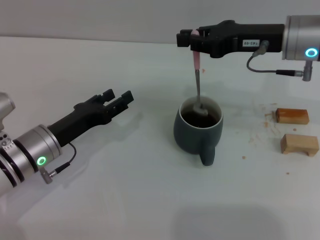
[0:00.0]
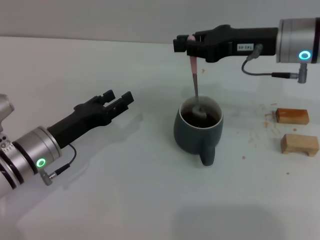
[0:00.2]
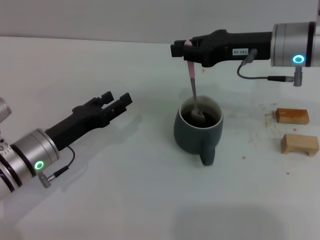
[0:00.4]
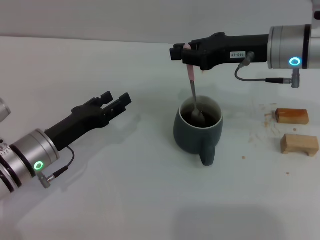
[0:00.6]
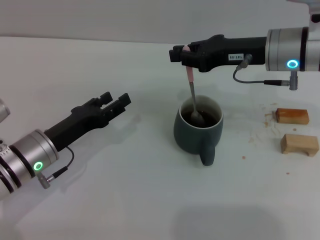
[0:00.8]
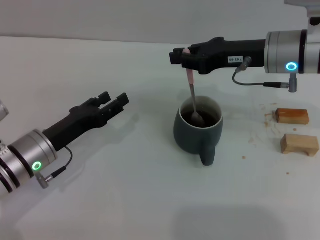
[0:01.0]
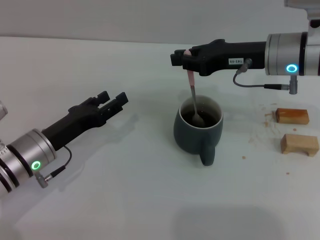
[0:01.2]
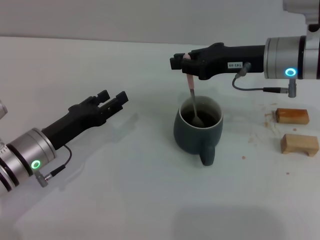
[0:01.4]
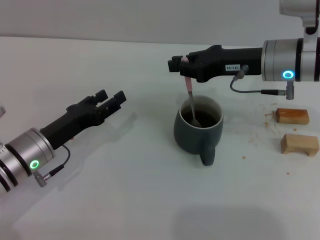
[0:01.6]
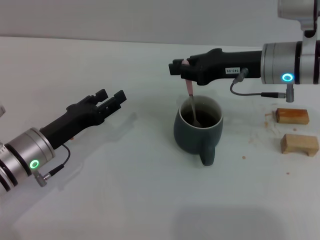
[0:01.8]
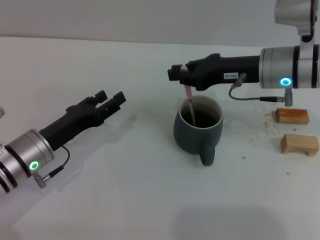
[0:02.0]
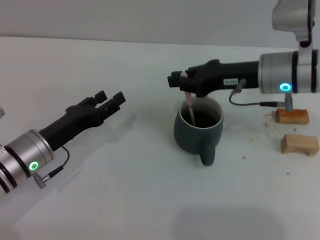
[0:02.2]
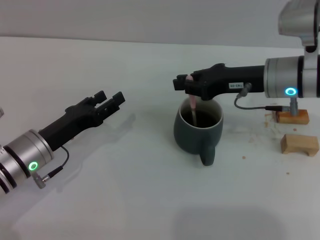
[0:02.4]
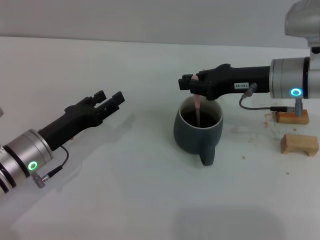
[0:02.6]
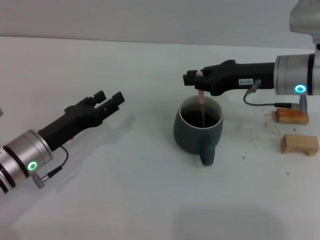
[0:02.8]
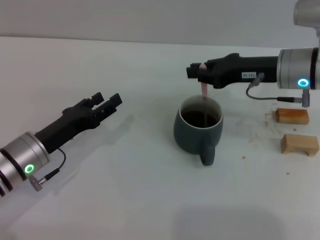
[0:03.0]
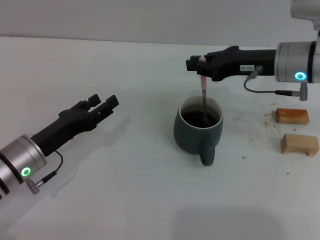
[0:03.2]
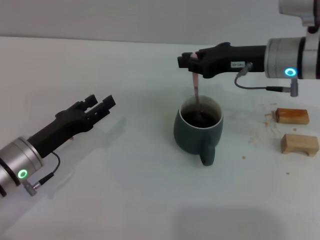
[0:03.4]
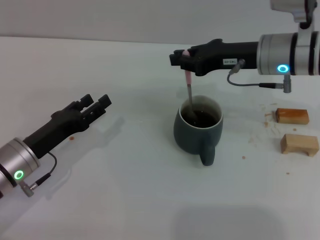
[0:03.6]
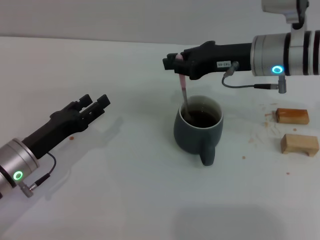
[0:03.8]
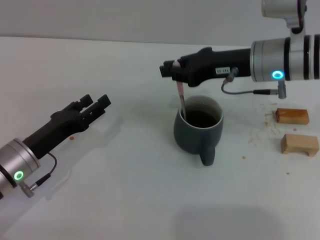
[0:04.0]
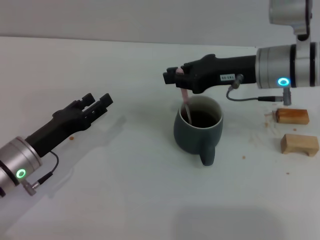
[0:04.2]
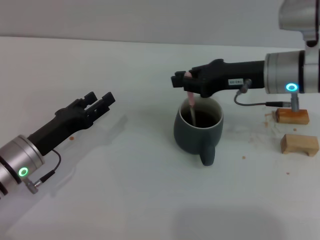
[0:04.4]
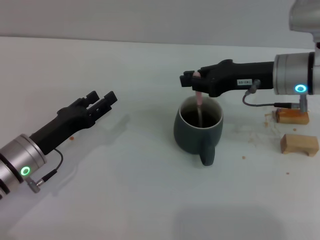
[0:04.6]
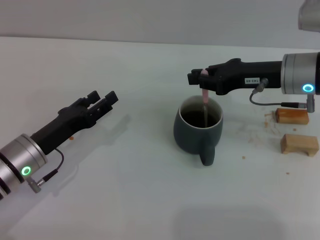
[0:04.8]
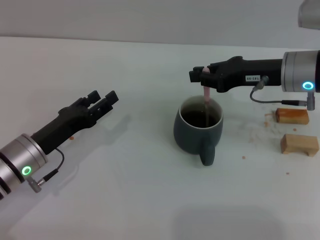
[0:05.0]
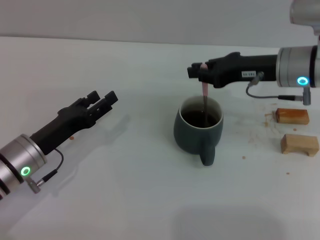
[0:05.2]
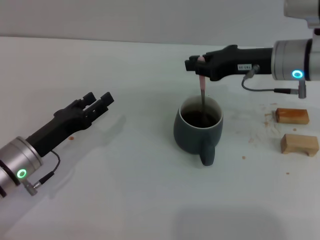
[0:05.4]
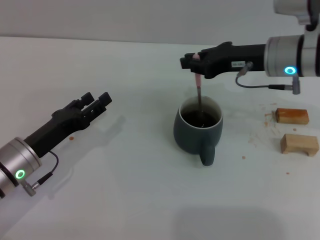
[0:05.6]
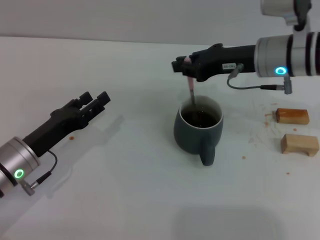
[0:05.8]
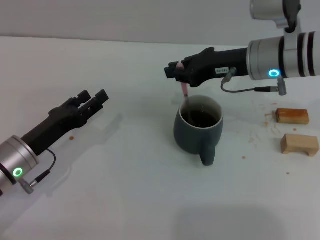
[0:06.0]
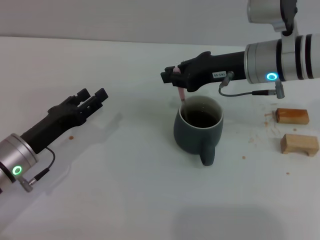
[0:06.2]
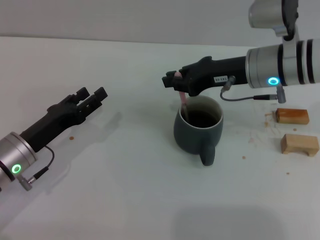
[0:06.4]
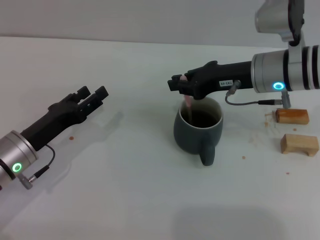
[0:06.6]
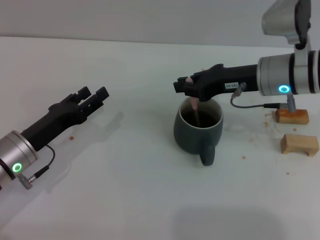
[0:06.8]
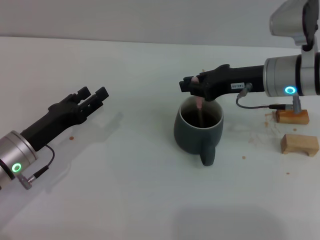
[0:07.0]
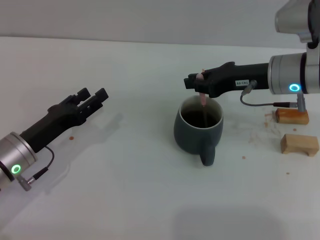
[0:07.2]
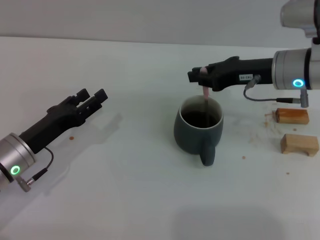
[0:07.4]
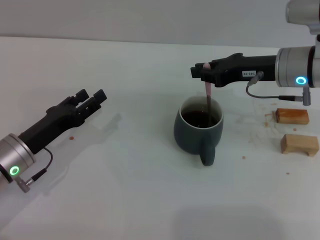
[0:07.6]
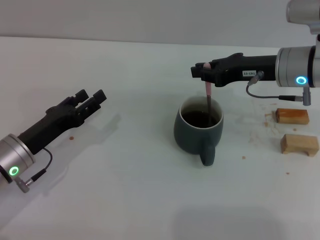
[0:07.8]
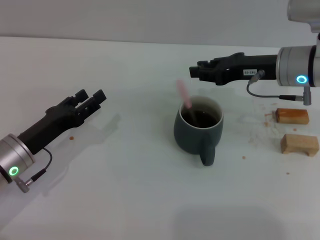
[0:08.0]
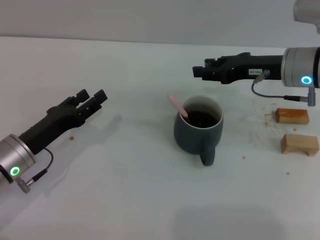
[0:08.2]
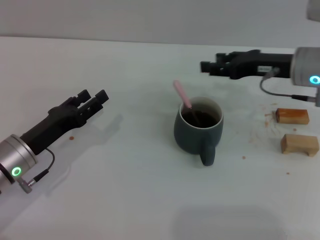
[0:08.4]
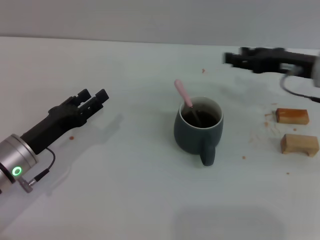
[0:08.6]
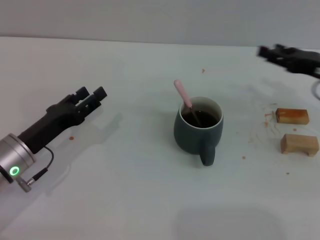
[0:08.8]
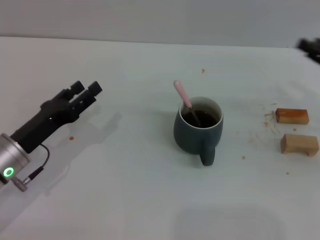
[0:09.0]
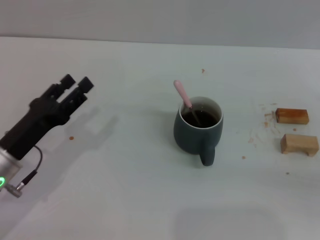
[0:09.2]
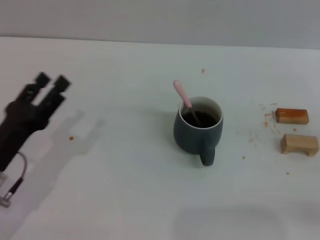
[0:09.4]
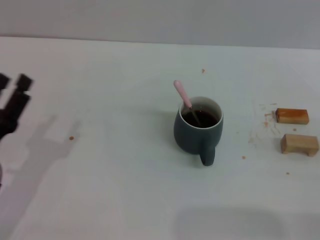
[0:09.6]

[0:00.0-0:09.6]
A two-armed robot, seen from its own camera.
Task of the whole recording: Move the grey cup to the center, lift the pink spoon, stir it three times in the cup, and put the spoon into the cup.
Step, 0:00.0 to 0:08.2: Stir the coffee in the cup with the right gripper.
0:00.0 to 0:08.0: The grippers make only small movements.
0:08.0 to 0:09.6: The right gripper travels backward and to the right by approximately 25 cm, and opens its fingers. The left gripper is displaced backward by some 10 cm.
